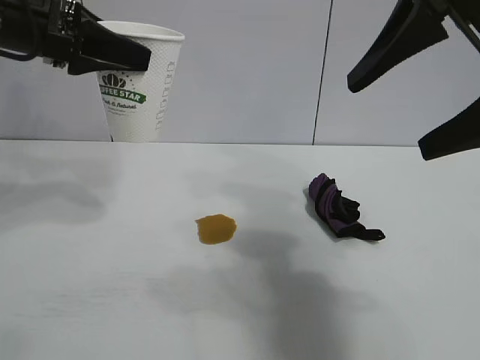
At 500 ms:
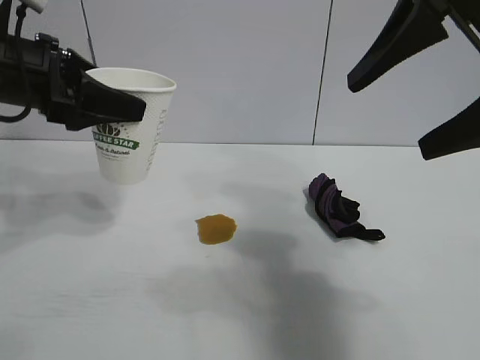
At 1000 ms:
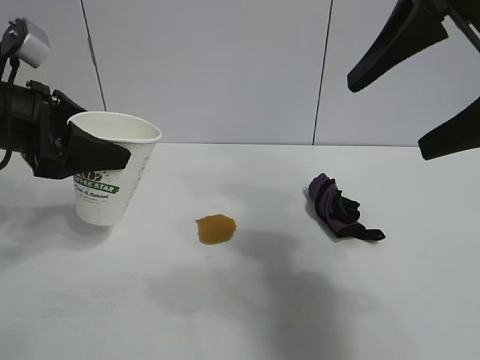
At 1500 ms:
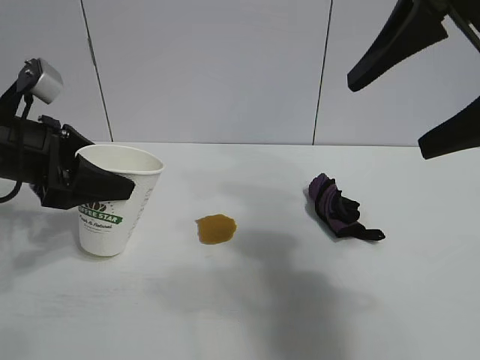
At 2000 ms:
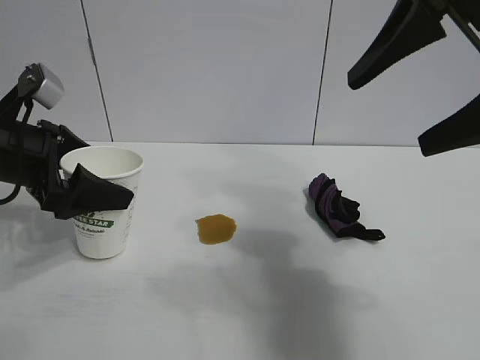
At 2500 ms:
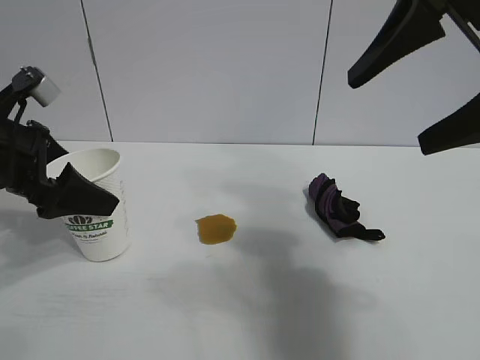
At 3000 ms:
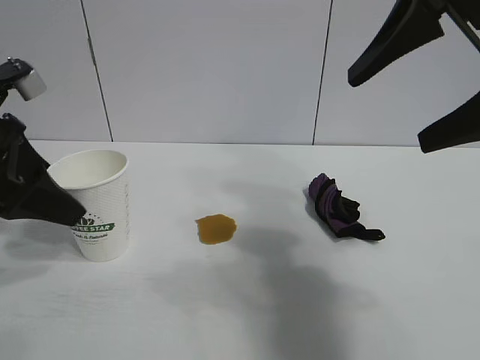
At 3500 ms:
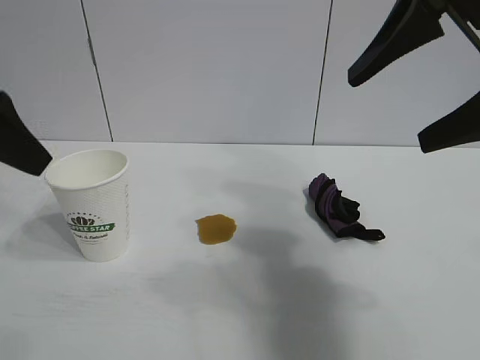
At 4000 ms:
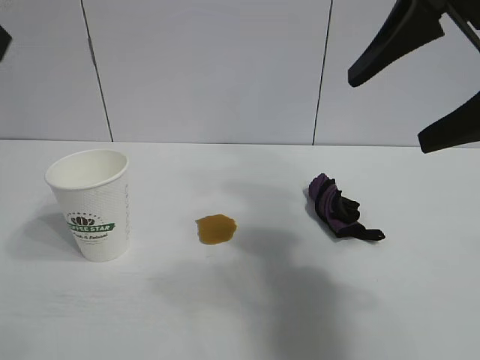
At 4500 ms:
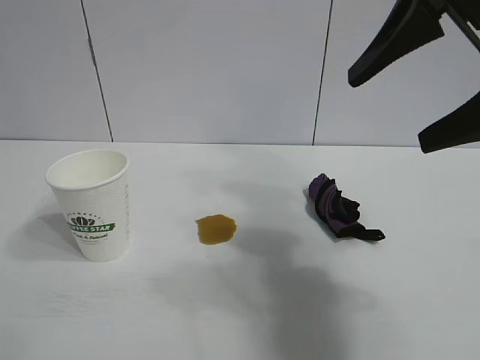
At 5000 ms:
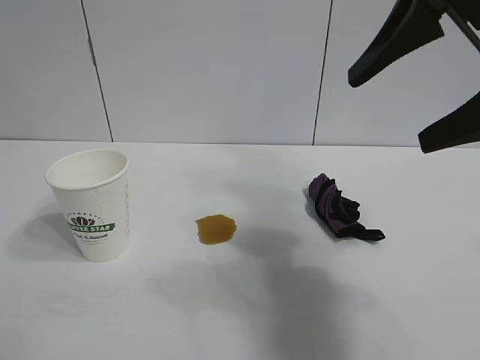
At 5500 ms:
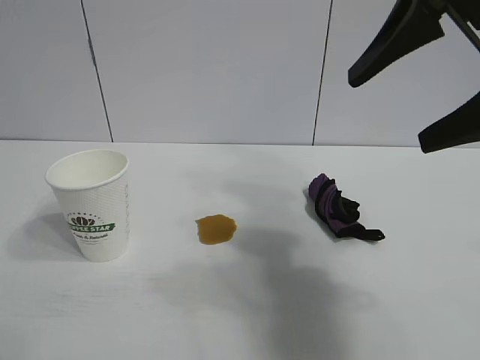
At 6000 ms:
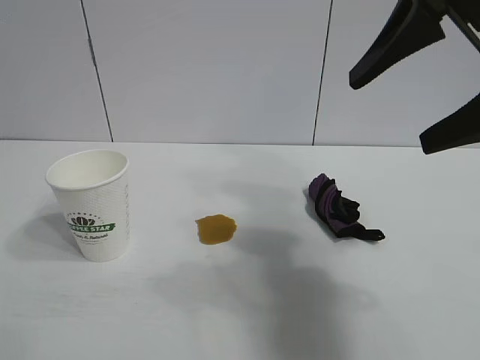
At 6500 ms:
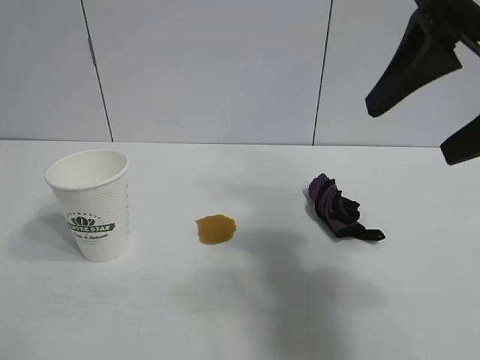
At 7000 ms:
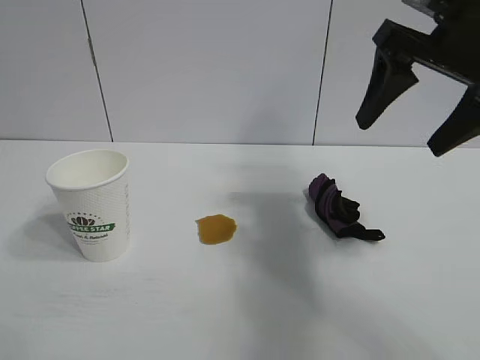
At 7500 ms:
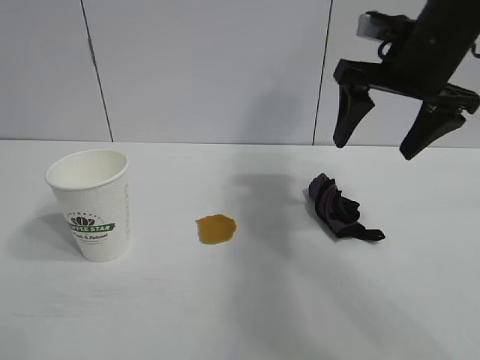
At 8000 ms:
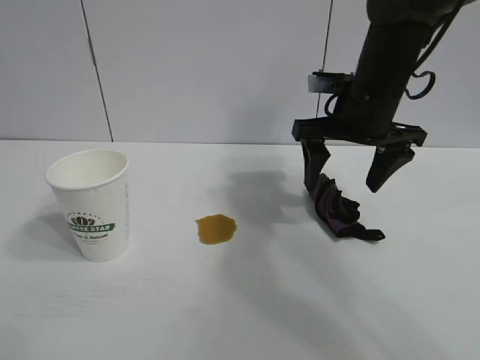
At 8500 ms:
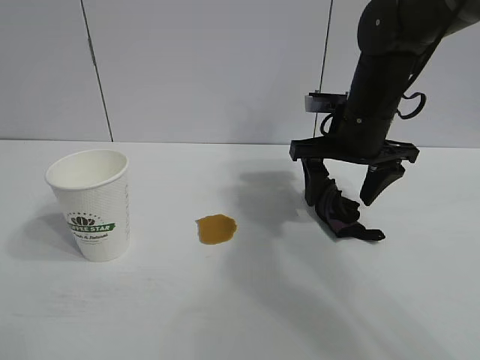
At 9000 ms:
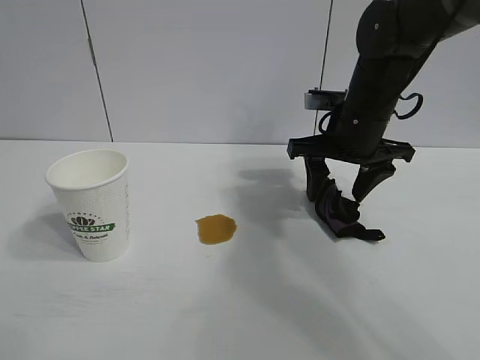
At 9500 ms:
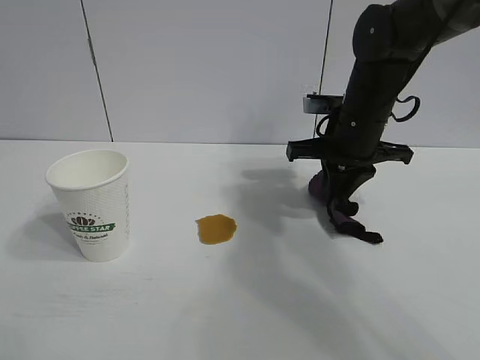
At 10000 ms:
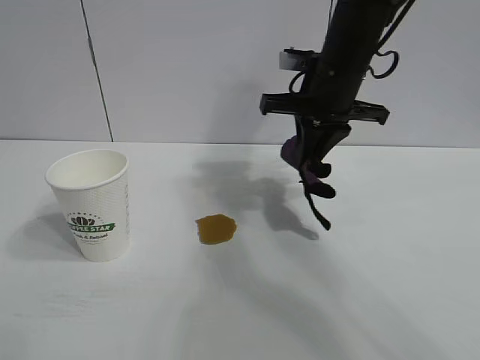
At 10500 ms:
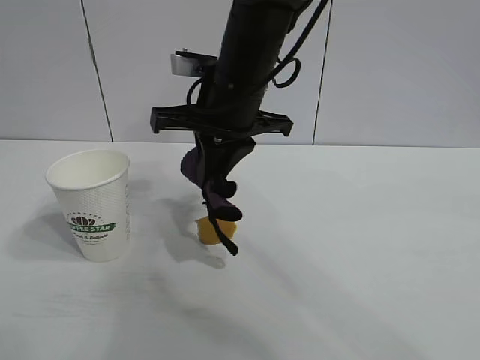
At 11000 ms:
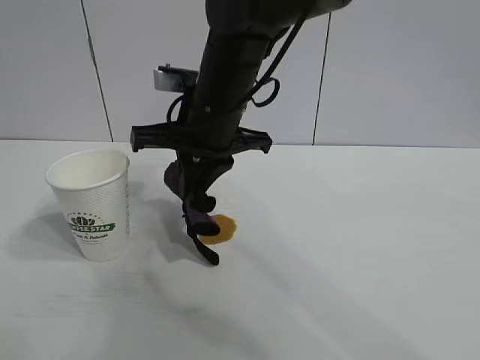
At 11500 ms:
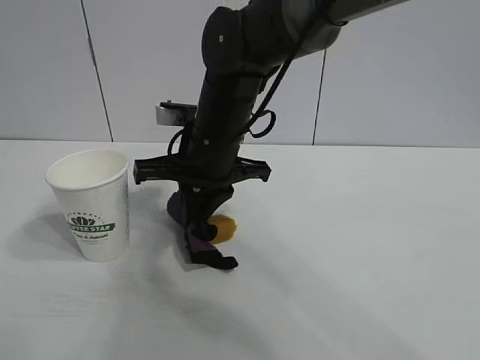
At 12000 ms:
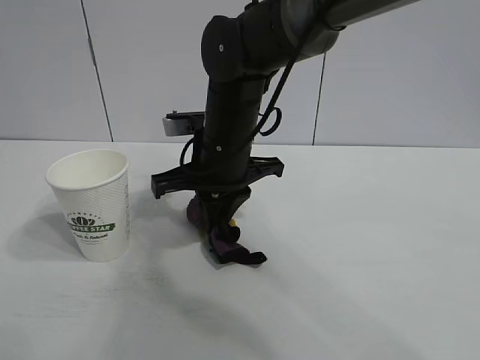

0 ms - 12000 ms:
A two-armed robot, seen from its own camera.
Task of the whole recording: the left gripper pick up the fallen cup and place it upright, the right gripper grasp the black rag and wipe the stain on the table, the right gripper put the black rag back in its original position.
Step, 0 ms - 2500 ms: Stand the paper cup upright with left gripper.
Step, 3000 ms - 9000 ms: Grasp the rag with right gripper.

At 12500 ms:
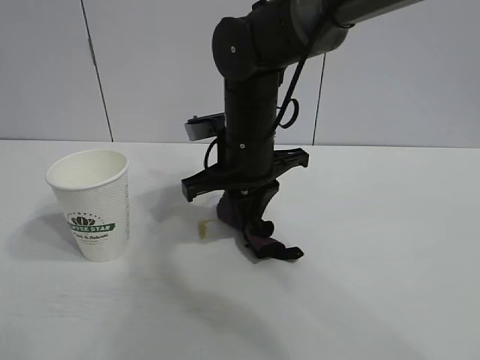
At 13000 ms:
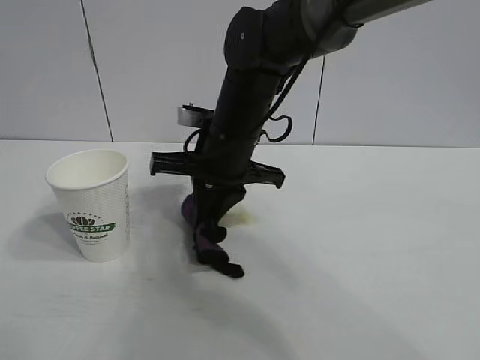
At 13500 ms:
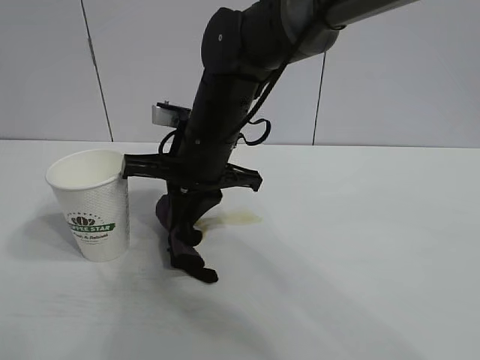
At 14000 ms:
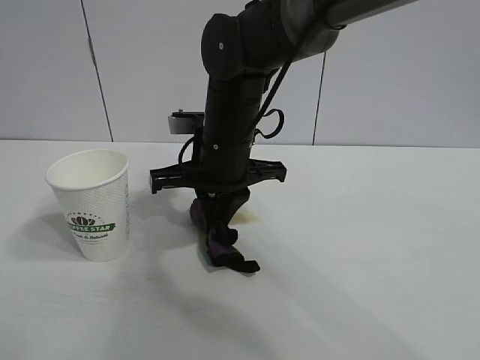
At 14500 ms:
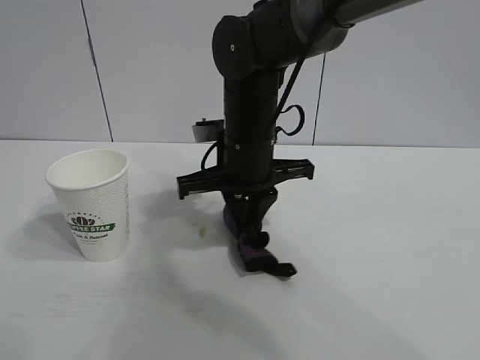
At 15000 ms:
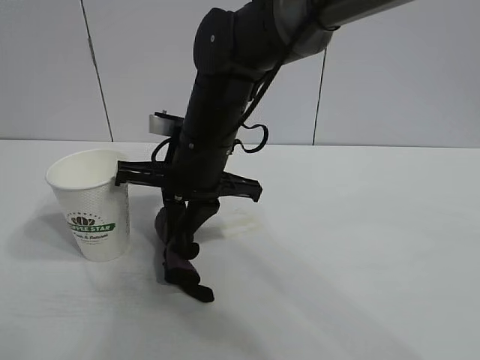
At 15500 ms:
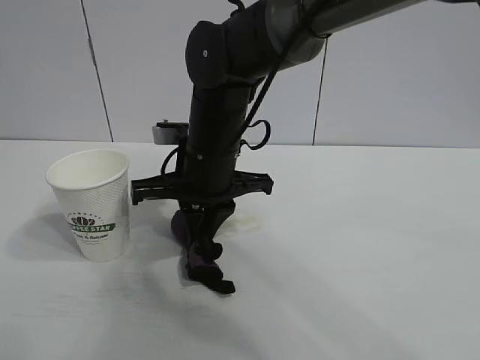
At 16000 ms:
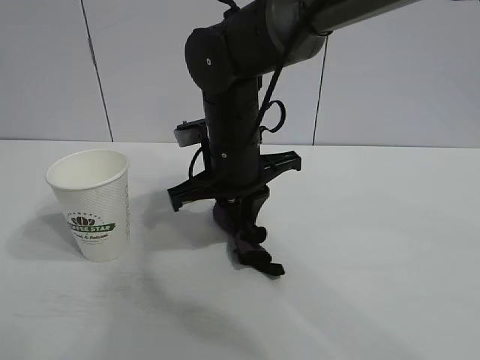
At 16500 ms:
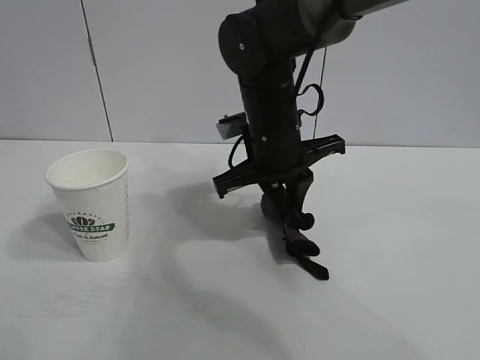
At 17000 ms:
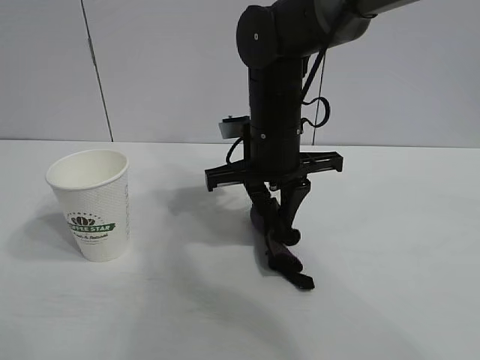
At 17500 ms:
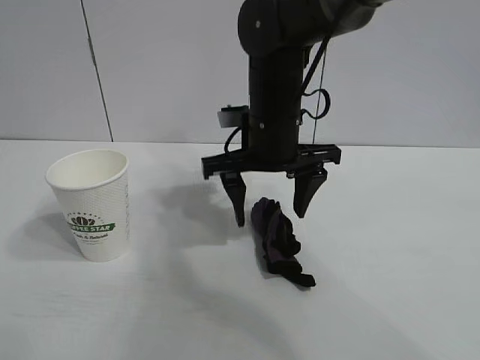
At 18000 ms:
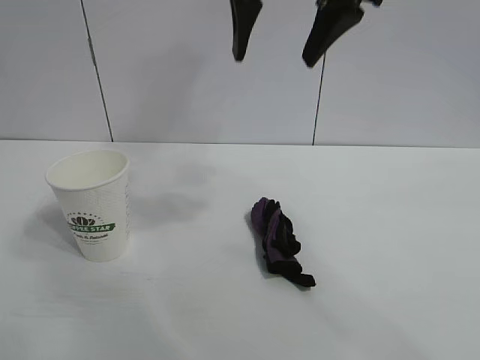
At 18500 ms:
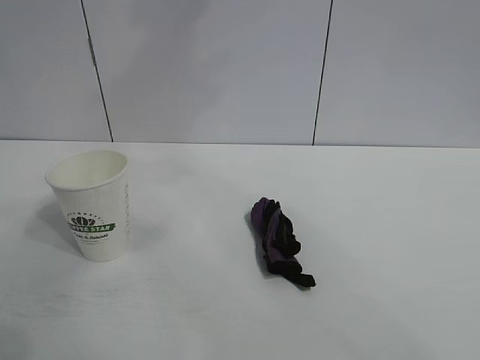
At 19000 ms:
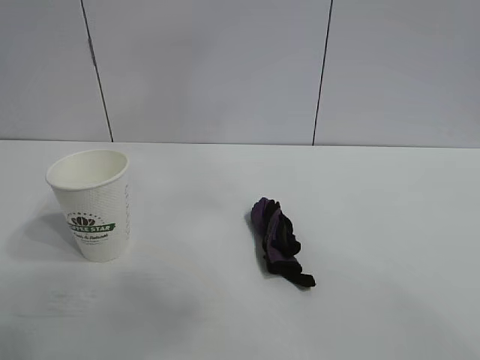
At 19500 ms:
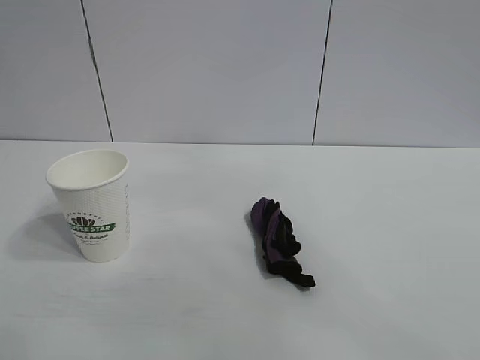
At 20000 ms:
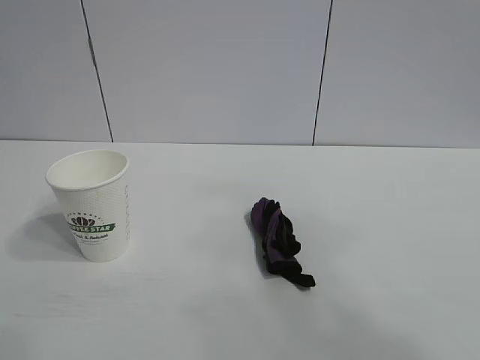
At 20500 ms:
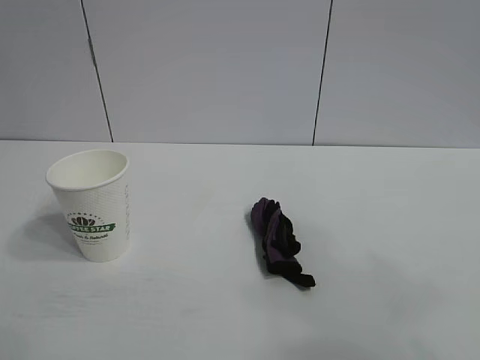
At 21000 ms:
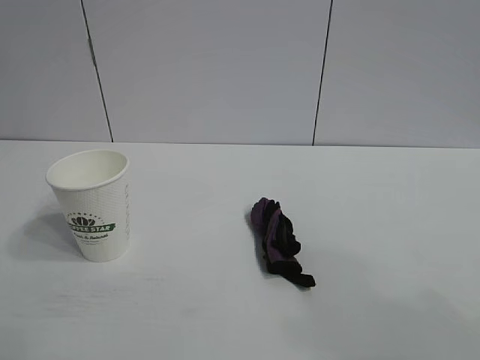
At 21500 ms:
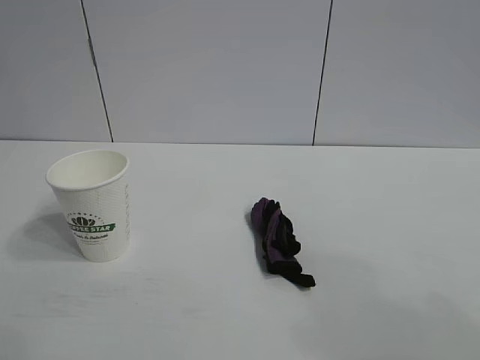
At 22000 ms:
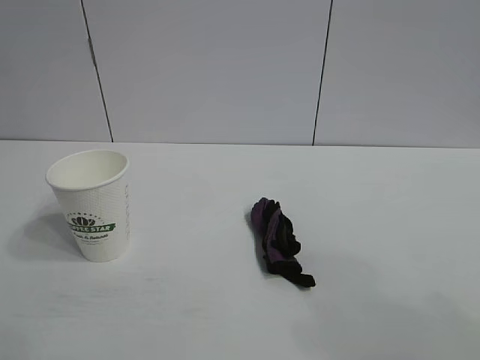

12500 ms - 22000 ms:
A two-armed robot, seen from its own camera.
Task of the whole recording: the left gripper pick up the fallen cup and place it upright, the right gripper grasp the black rag and wipe the stain on the table, the right gripper put the black rag back in its original position.
Step, 12500 ms - 16000 ms: Wipe the stains off the table with the rag with right gripper.
Step, 16500 ms - 17000 ms: Place the rag on the table with right gripper.
